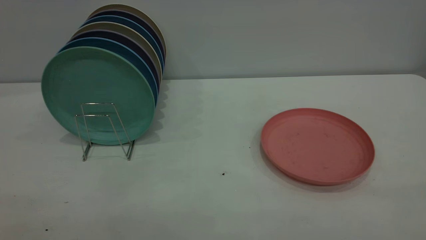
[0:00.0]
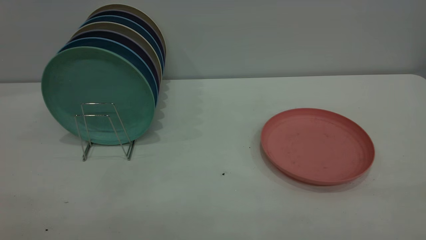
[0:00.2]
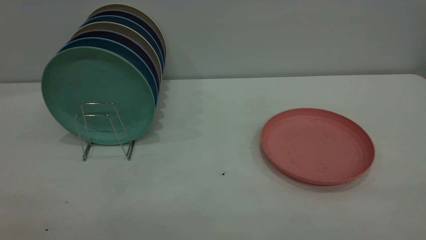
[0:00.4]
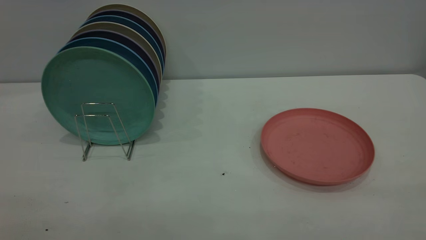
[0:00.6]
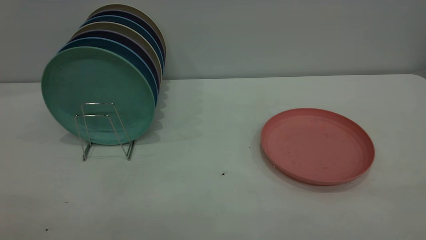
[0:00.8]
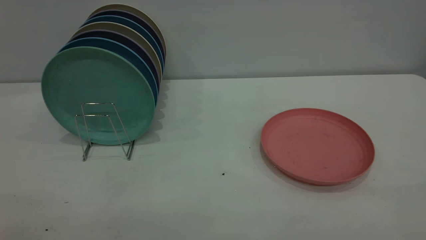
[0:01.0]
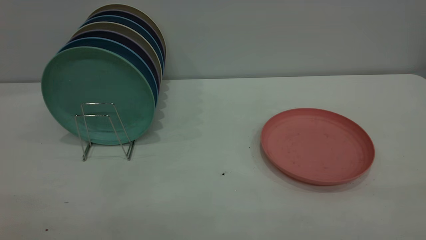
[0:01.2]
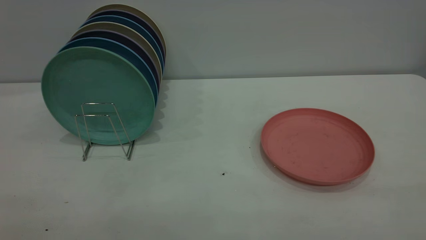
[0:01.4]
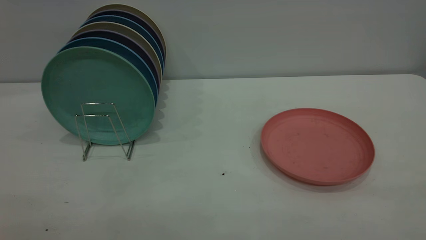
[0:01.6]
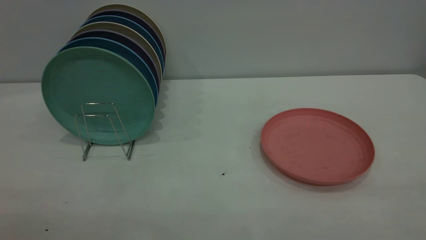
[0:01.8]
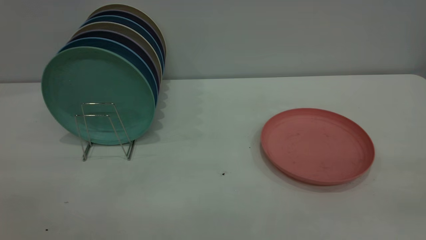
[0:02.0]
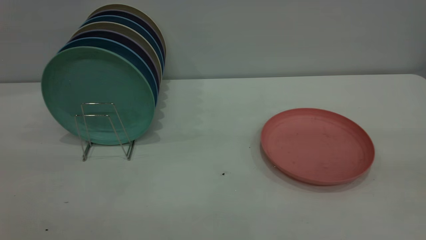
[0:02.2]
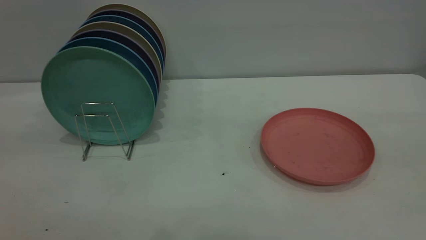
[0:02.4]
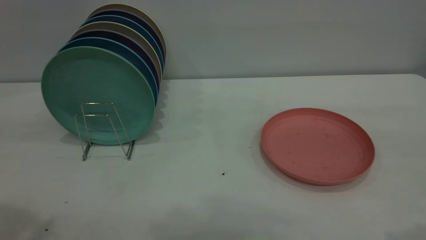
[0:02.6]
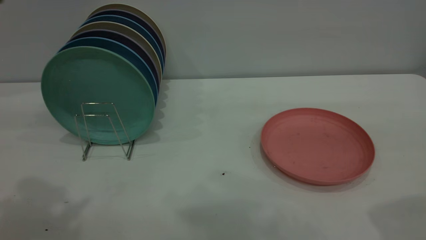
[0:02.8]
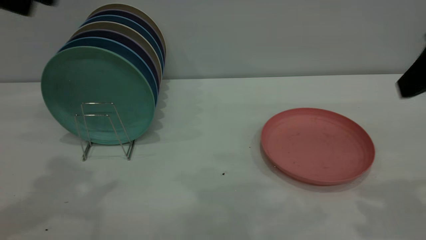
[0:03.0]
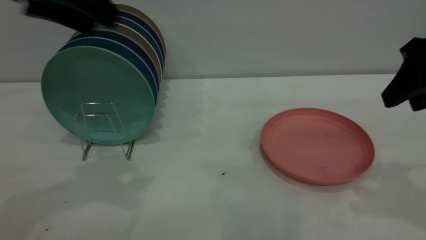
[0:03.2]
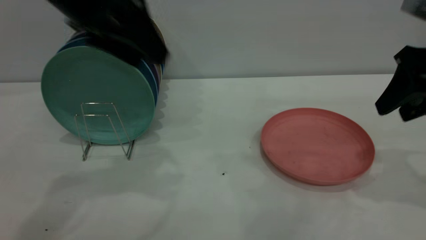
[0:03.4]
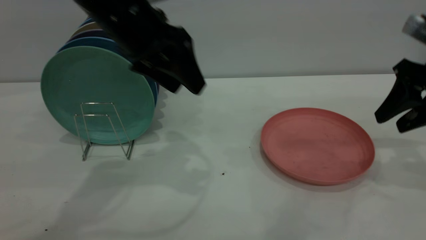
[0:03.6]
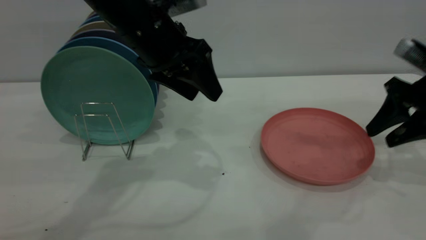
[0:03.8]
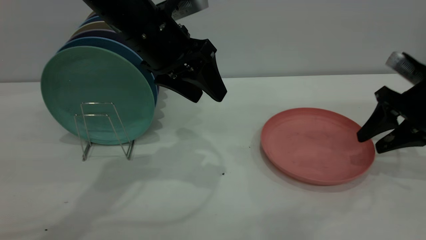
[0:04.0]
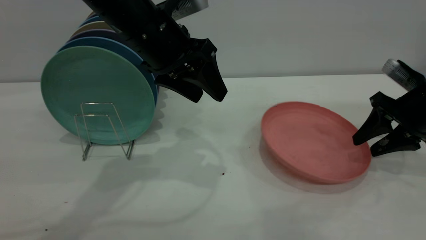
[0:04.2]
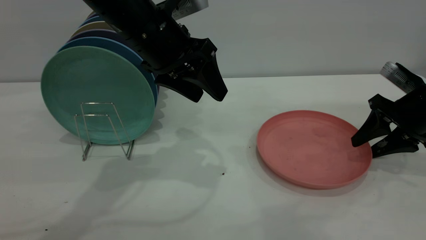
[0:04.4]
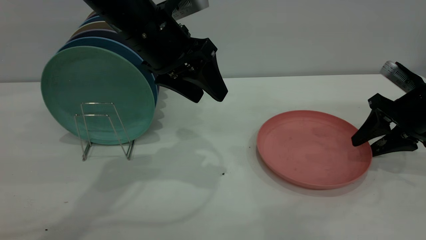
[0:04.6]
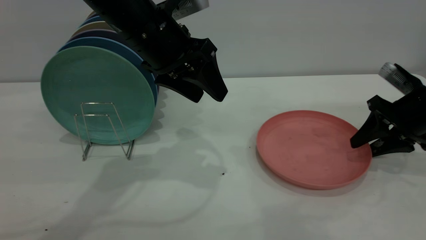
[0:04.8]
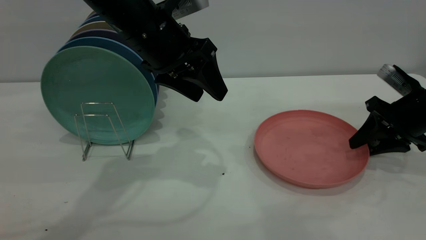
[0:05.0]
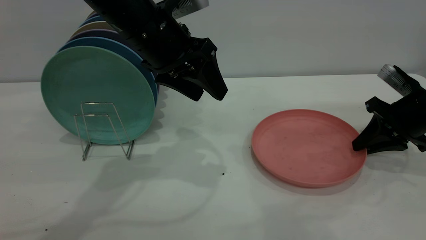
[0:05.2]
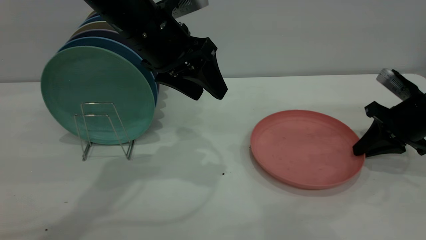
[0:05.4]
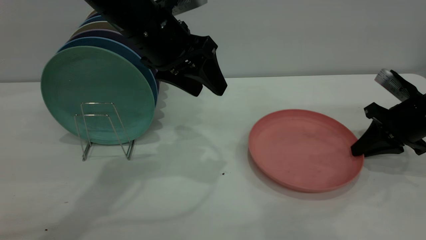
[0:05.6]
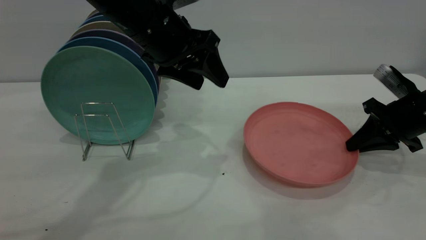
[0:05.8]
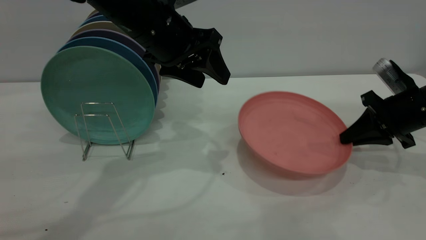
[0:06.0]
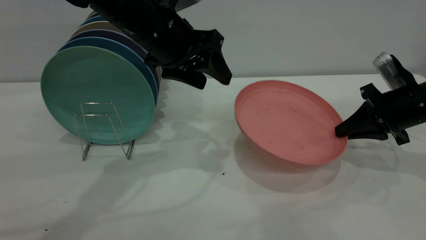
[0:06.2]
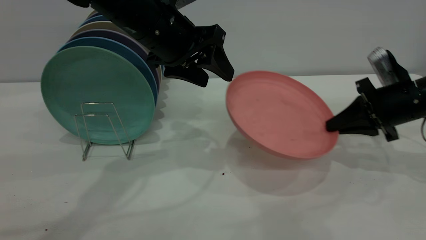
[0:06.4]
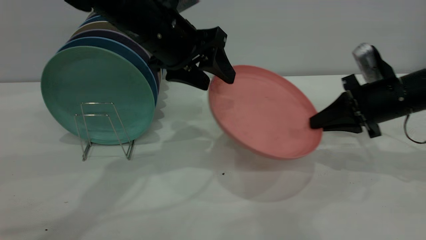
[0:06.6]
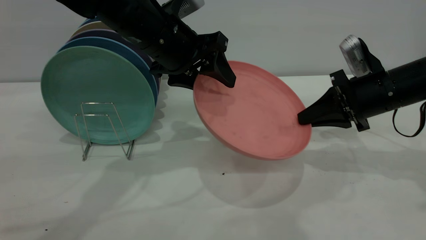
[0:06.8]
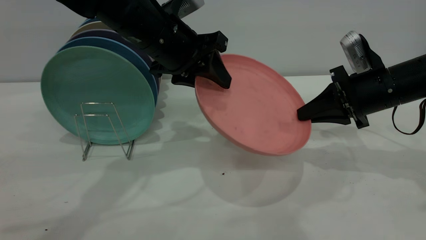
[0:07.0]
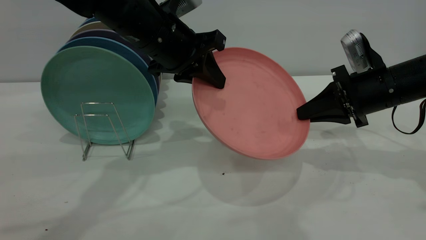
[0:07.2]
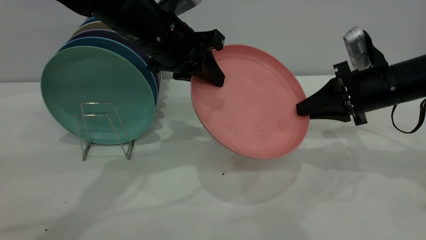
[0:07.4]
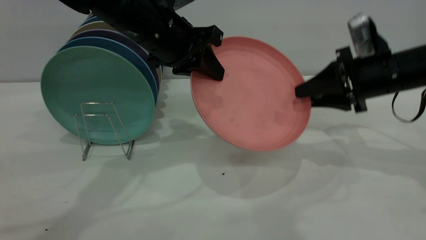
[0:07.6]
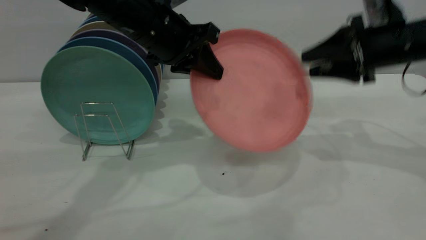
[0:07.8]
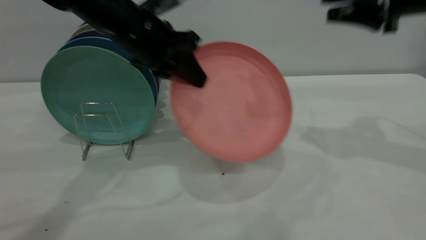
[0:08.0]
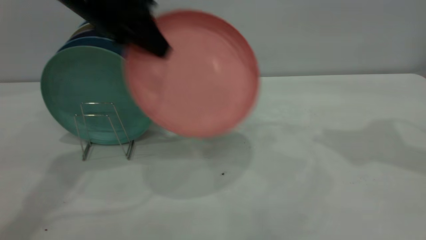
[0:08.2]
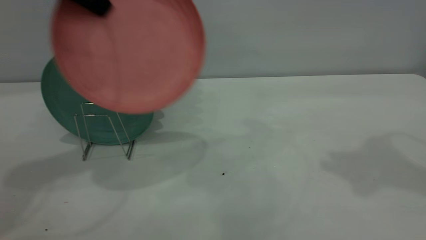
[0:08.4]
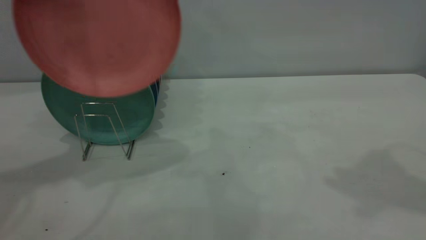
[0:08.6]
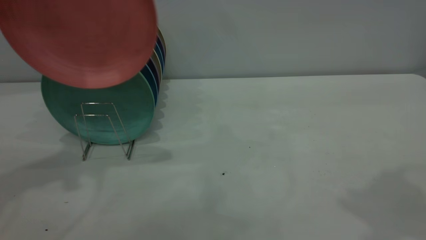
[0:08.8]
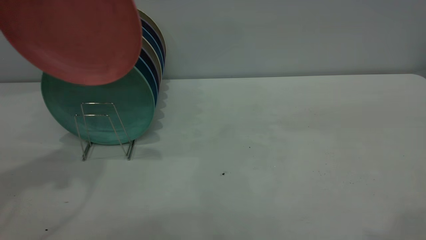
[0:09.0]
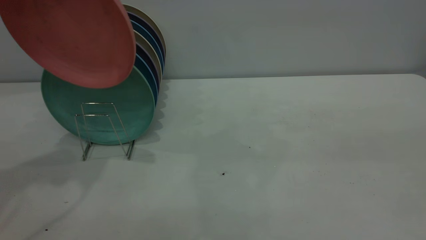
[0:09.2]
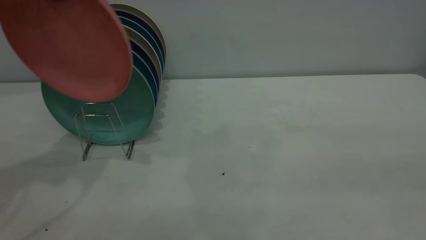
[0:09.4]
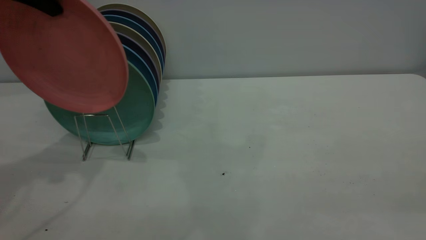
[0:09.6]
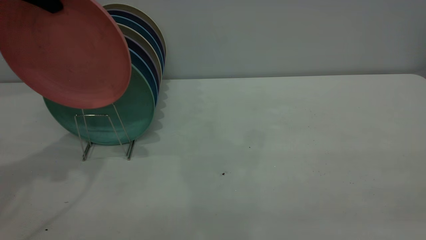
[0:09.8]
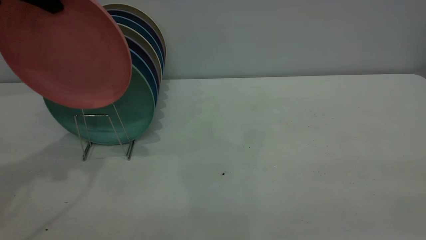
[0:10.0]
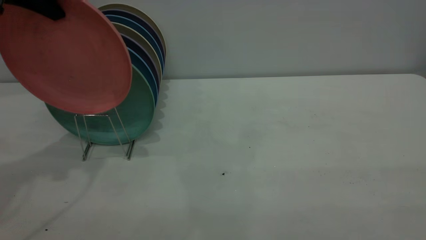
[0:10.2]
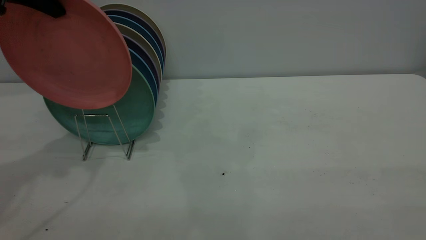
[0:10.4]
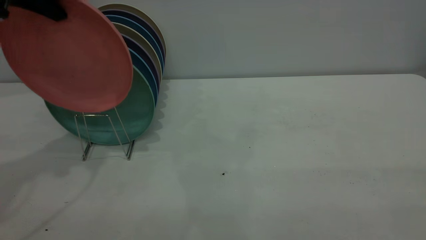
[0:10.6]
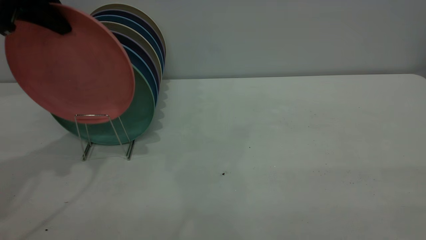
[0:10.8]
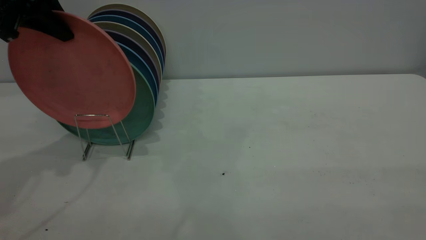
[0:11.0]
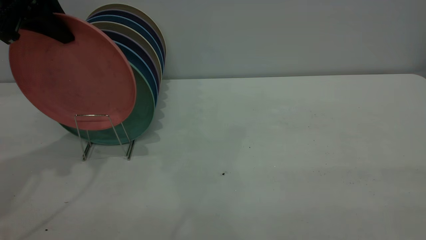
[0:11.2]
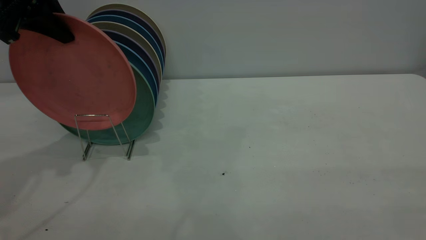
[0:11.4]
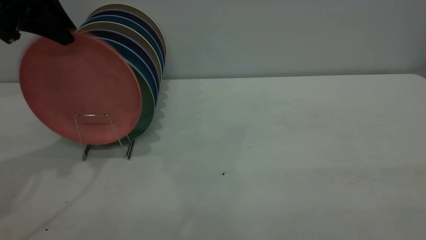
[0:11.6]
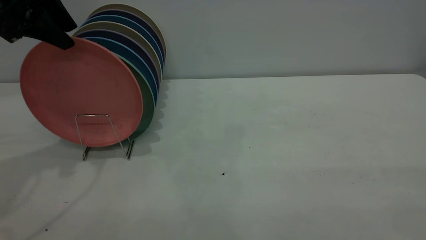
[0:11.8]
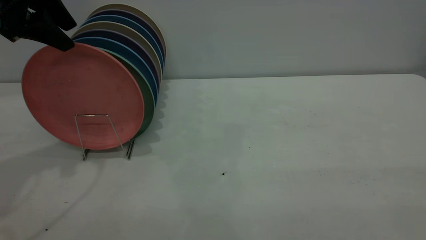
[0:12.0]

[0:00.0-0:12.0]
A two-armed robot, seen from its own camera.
Task of the whole recording: the right gripper grasp the pink plate, the right gripper pass the pink plate to the left gripper, and the left gripper place the pink plate on the plate rack.
Step, 0:00.0 to 0:05.8: Pick up the plate with the right gripper.
Step, 0:06.2 to 0:08.8: Pass the plate from the right gripper to the left gripper.
0:00.0 to 0:01.6: Neither gripper changes place.
0:01.6 to 0:03.0: The right gripper goes about 25 cm forward.
0:03.0 to 0:04.4: The left gripper moves to the right, downward and forward, roughly 20 cm, while the right gripper moves downward and forward, roughly 20 cm.
0:04.4 to 0:06.0: The right gripper closes up.
0:06.0 to 0:07.6: The right gripper travels upward and to the left by about 10 cm, and opens its fingers. Meanwhile the left gripper closes up.
0:07.6 to 0:09.0: The left gripper travels to the left and upward by roughly 25 cm; the right gripper shifts approximately 35 cm upward and backward, and closes.
0:09.0 to 0:10.4: The left gripper changes place by roughly 5 cm.
0:10.4 to 0:12.0: The left gripper opens its fingers.

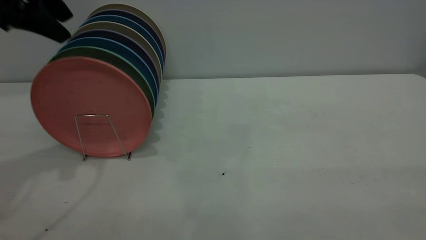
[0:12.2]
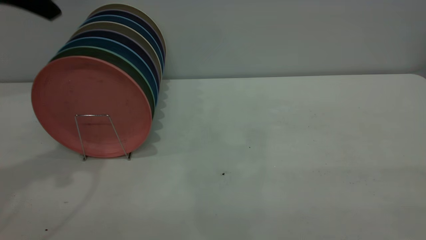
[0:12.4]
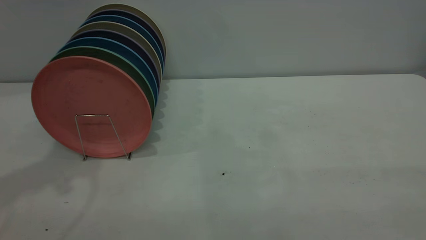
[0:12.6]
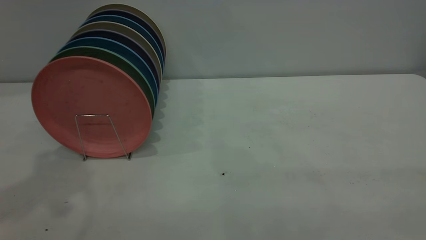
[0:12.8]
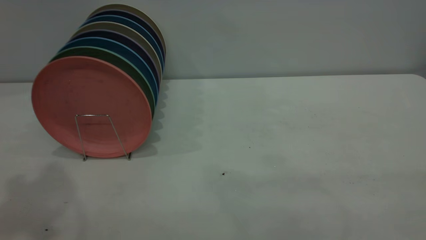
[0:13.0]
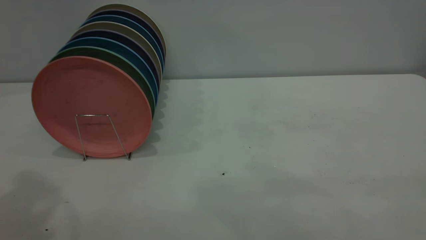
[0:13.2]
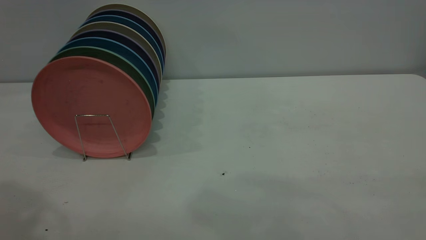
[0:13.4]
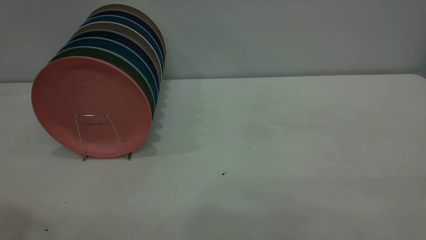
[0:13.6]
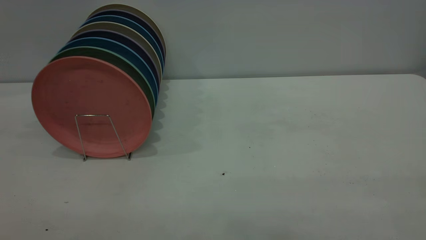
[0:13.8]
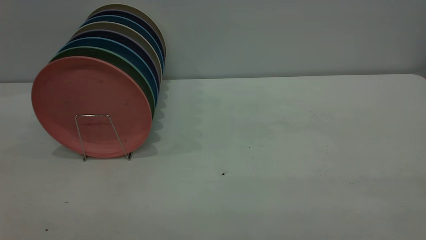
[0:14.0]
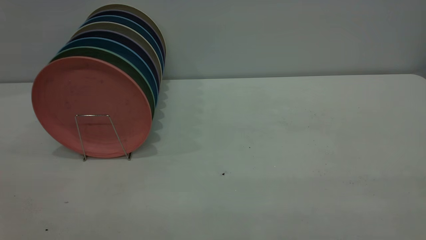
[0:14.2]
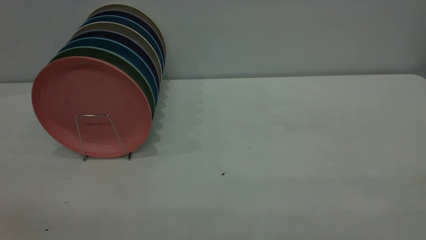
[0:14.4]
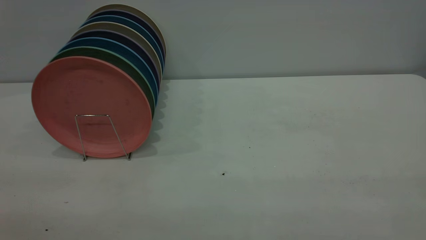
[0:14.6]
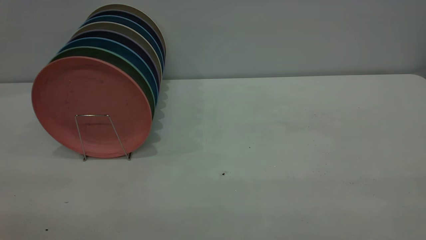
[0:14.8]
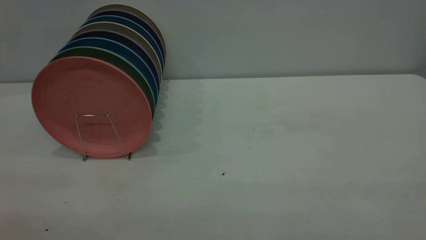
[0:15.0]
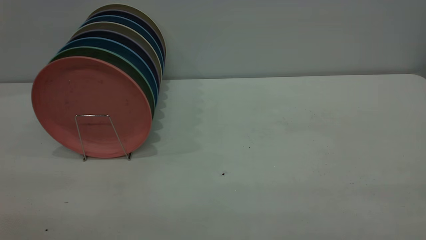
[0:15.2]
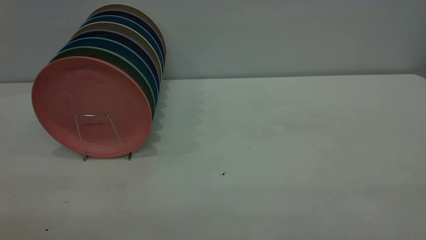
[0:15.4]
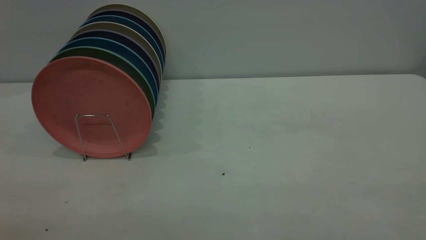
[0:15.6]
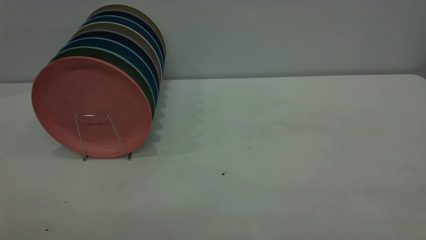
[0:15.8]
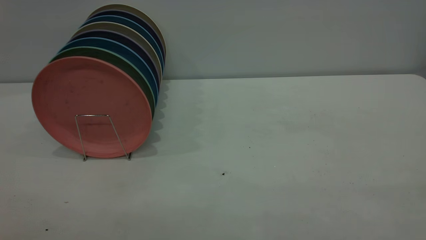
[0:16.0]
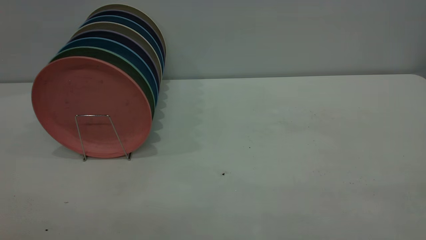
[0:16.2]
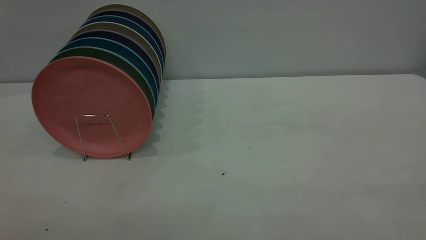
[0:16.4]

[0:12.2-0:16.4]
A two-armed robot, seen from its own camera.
Task of the whole recording: the right gripper grasp the pink plate, the right gripper pass the pink plate to the left gripper, and the left gripper place the pink plate on the plate rack.
0:12.2 to 0:13.6: The left gripper heads backward and upward, covering about 25 cm.
